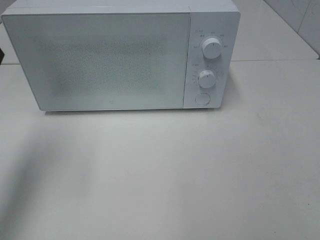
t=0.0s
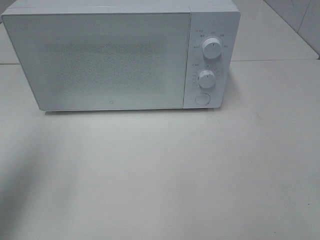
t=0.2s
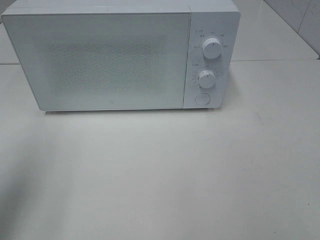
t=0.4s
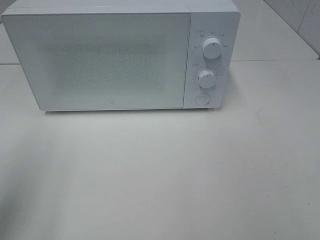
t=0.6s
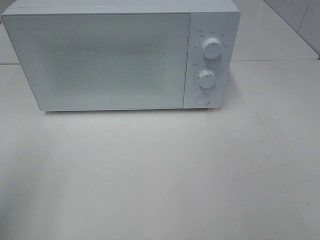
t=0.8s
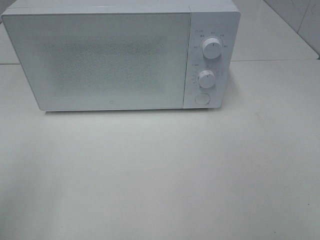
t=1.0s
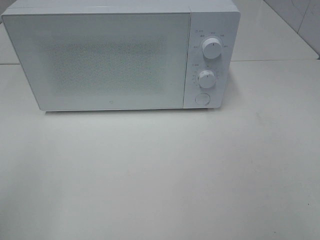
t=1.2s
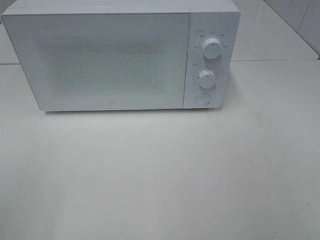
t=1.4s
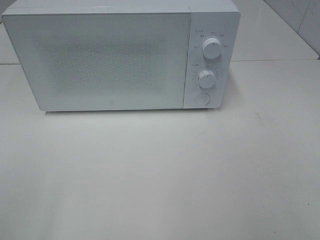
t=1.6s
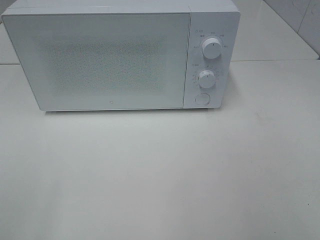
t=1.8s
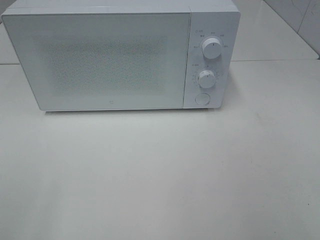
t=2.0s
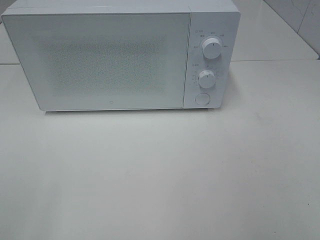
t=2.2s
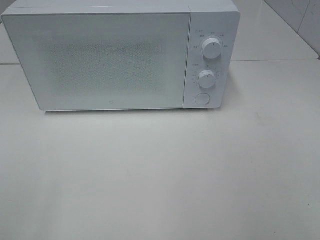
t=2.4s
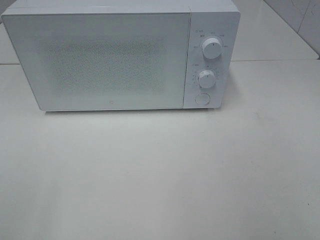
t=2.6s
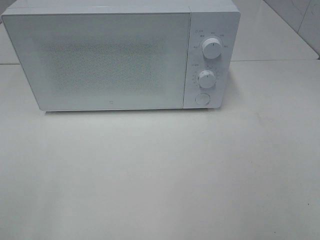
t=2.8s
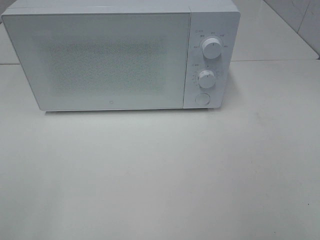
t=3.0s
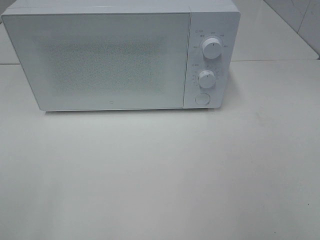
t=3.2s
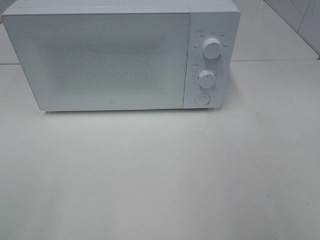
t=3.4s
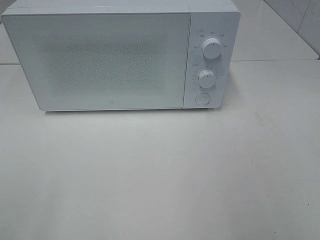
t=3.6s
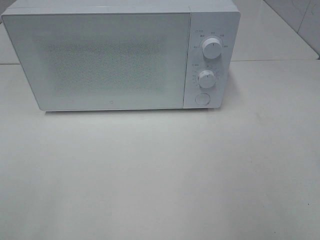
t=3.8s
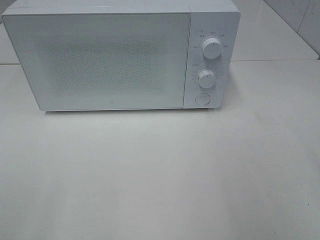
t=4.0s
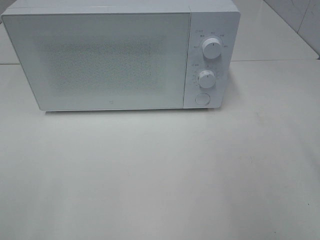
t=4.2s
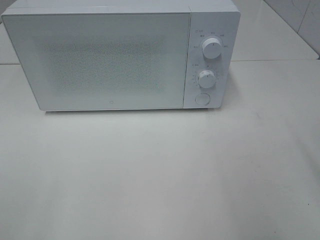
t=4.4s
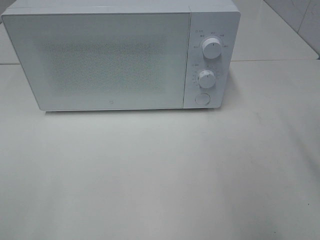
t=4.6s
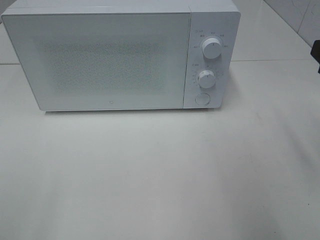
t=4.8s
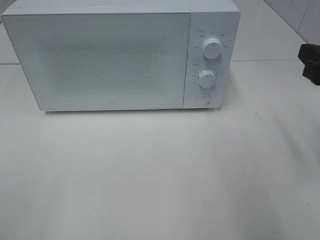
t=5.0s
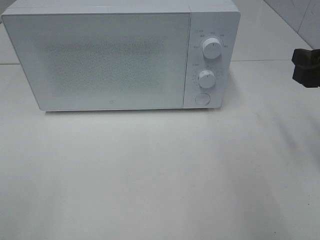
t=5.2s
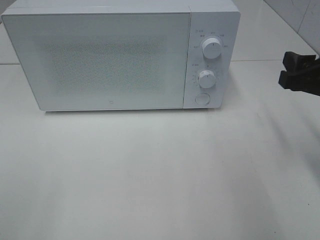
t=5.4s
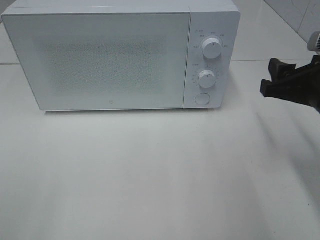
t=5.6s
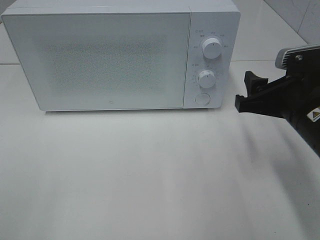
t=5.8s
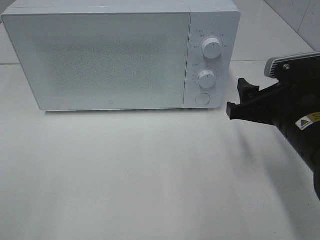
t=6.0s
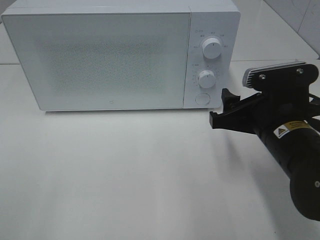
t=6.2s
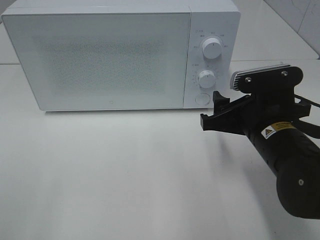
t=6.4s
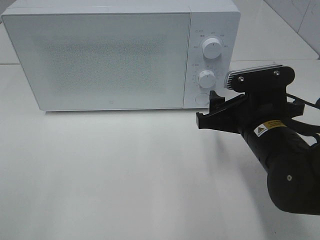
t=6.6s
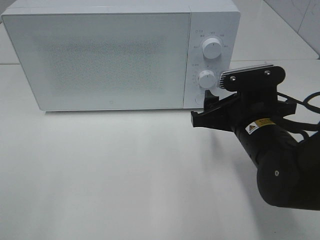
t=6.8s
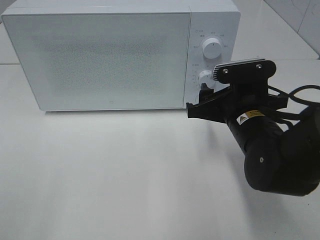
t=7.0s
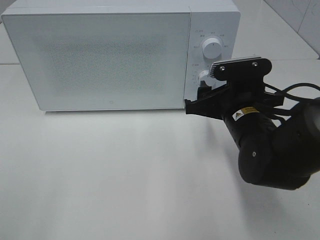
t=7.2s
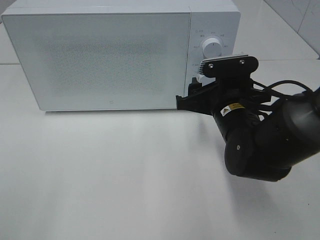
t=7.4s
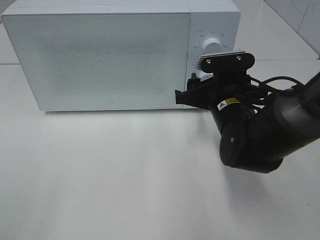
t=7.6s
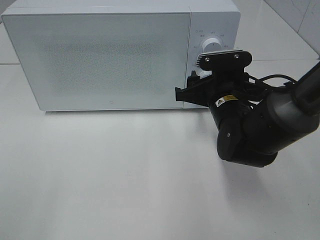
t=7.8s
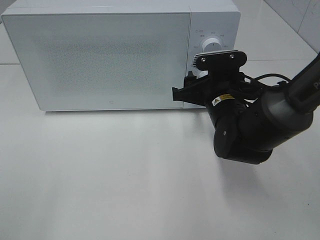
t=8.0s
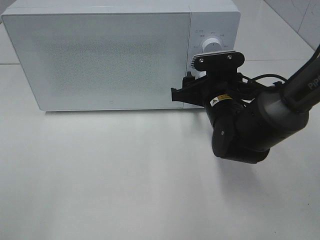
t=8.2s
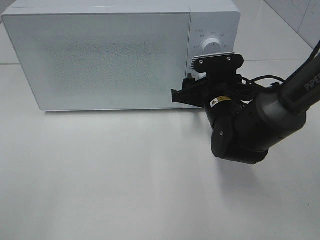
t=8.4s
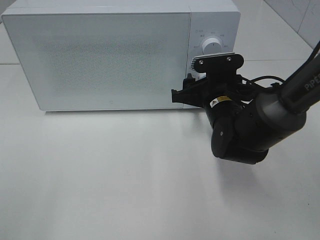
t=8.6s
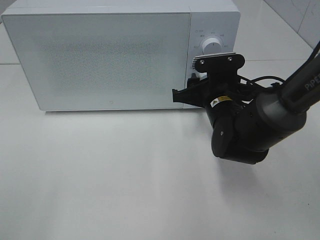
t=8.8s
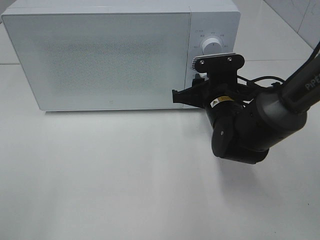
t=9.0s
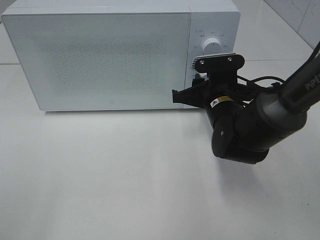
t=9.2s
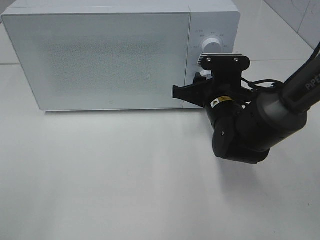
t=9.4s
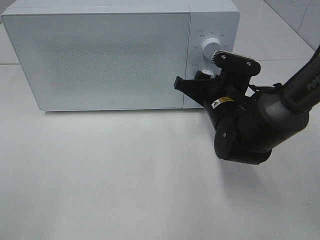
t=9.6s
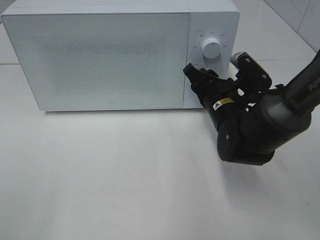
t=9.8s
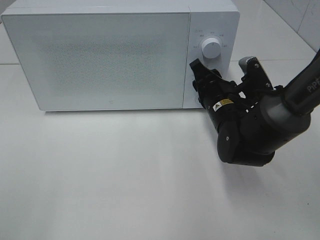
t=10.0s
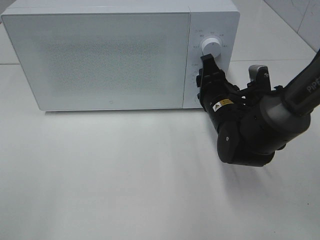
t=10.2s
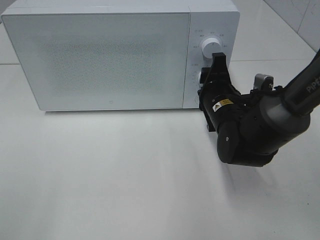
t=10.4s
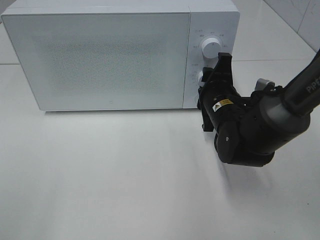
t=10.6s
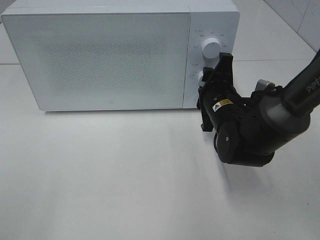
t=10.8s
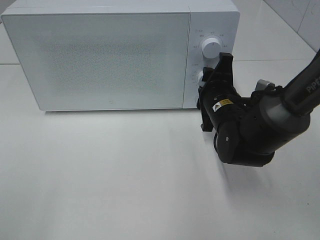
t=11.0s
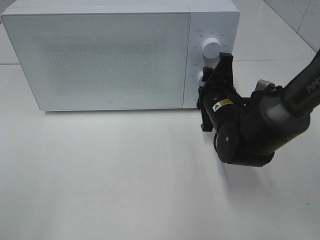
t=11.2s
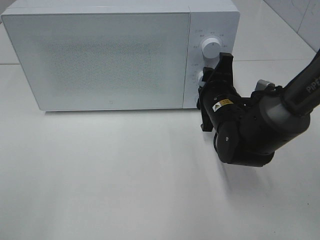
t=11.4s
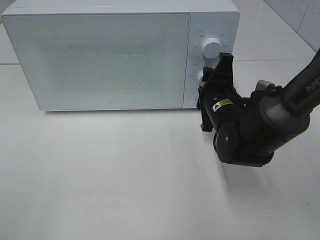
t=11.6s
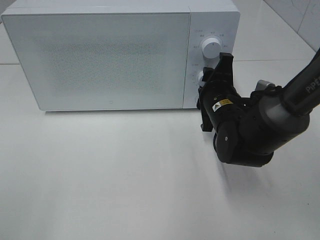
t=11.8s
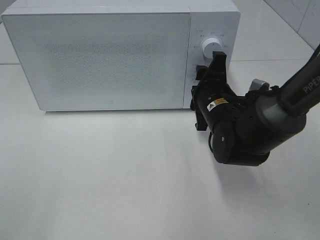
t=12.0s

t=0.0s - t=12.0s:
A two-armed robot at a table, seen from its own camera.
Task of the whole recording: Heat the burger.
t=0.0s - t=1.6s: The left gripper goes roughly 25 cm backward.
t=4.4s - t=6.0s: The right gripper heads downward, to the left and forward, covering roughly 15 cm.
t=6.0s - t=7.6s: The right gripper heads forward and to the left, covering roughly 10 cm.
t=7.6s - t=9.0s: The grippers make only small movements.
t=10.4s - t=12.0s: There are only small adjustments of the grippers.

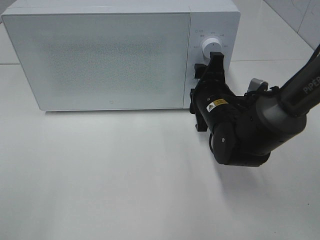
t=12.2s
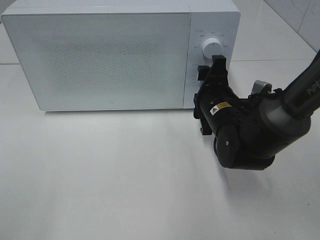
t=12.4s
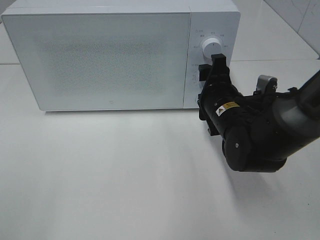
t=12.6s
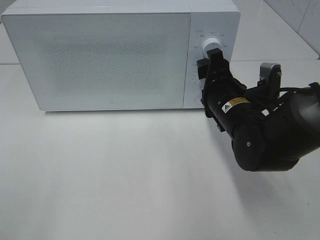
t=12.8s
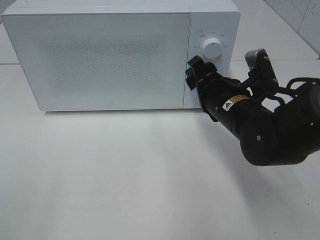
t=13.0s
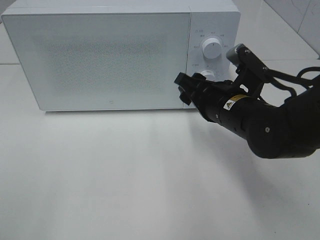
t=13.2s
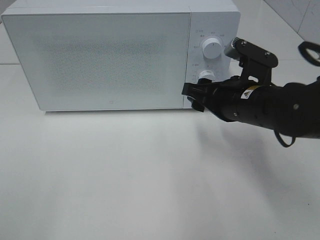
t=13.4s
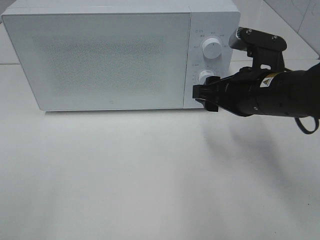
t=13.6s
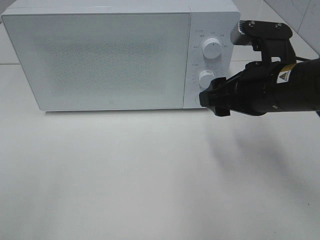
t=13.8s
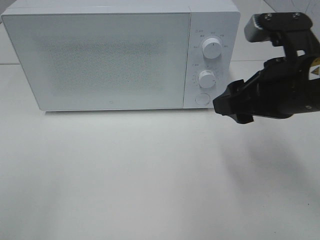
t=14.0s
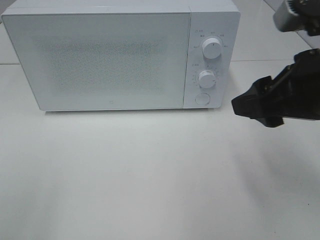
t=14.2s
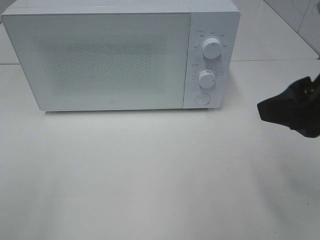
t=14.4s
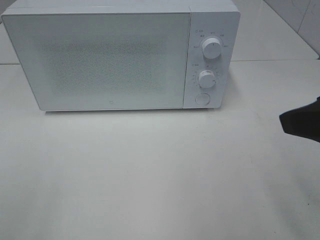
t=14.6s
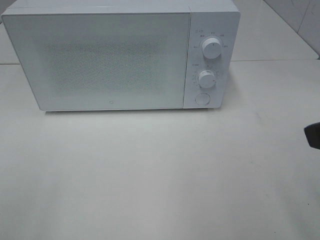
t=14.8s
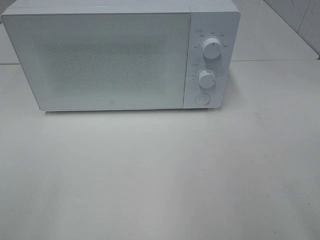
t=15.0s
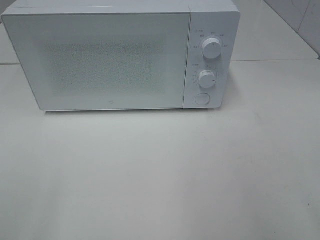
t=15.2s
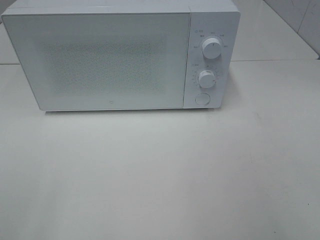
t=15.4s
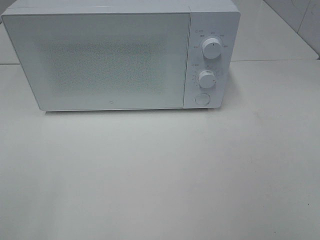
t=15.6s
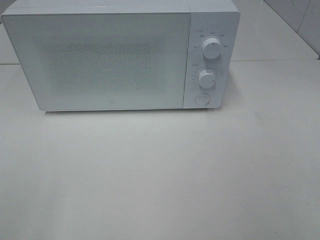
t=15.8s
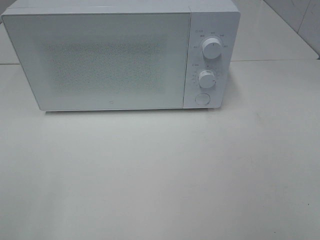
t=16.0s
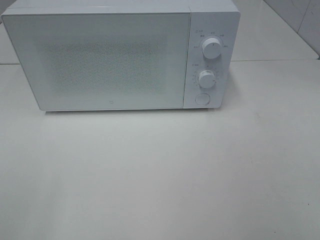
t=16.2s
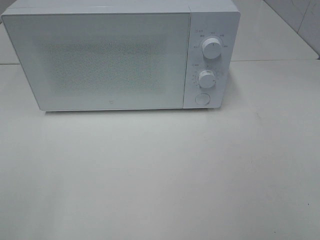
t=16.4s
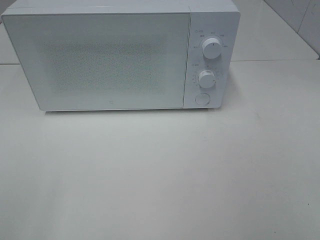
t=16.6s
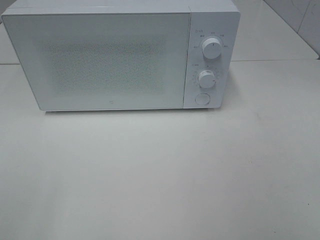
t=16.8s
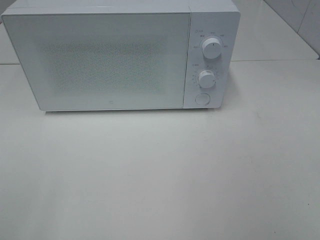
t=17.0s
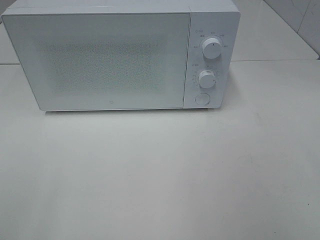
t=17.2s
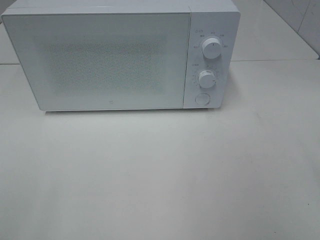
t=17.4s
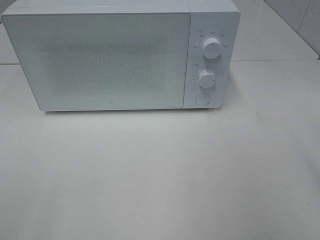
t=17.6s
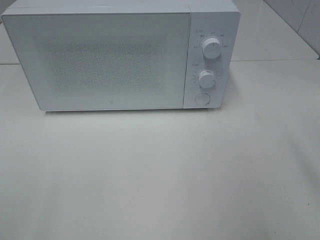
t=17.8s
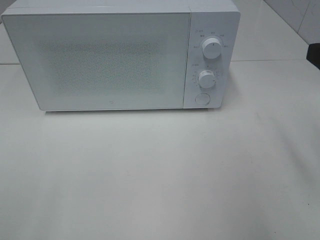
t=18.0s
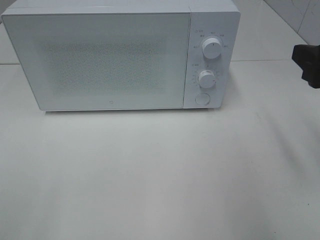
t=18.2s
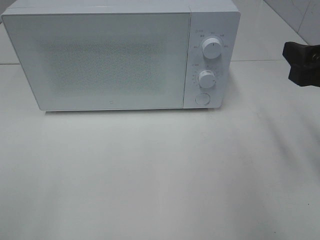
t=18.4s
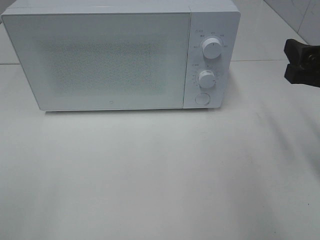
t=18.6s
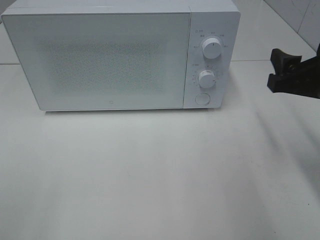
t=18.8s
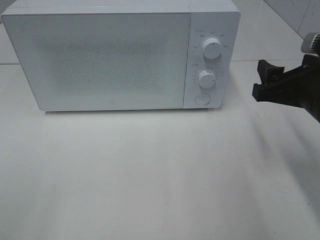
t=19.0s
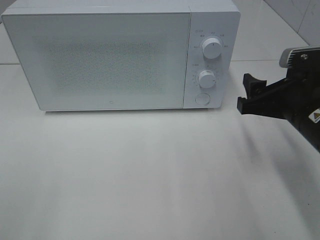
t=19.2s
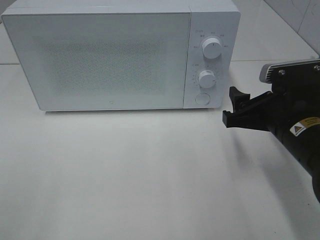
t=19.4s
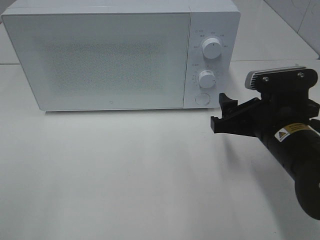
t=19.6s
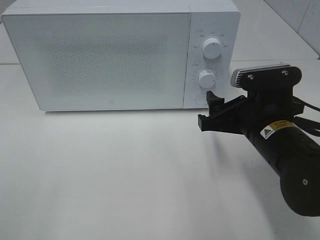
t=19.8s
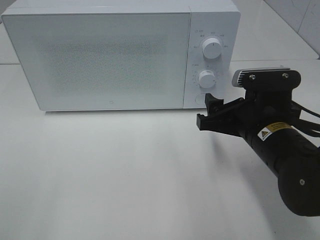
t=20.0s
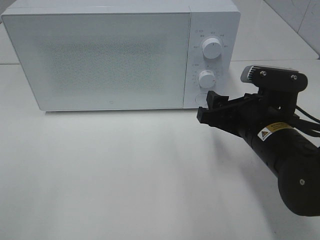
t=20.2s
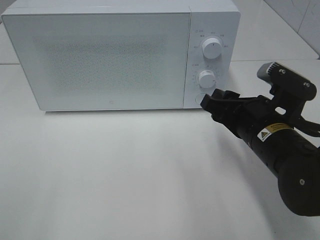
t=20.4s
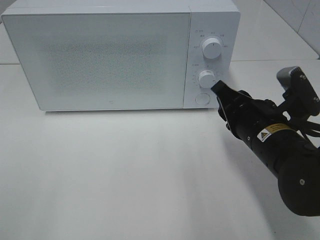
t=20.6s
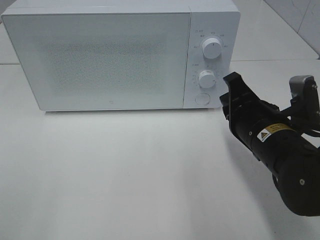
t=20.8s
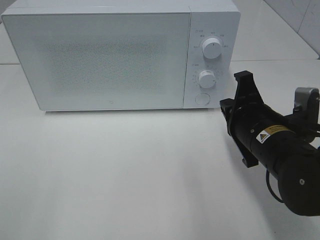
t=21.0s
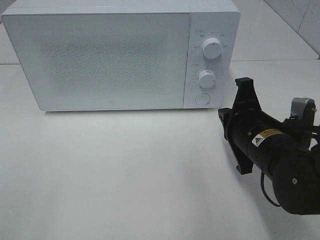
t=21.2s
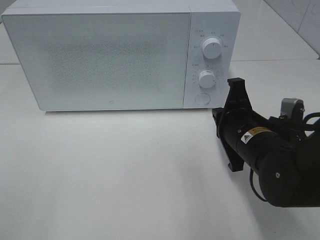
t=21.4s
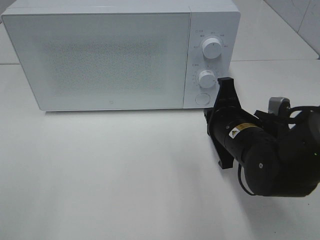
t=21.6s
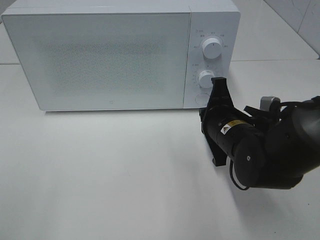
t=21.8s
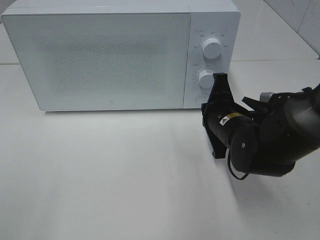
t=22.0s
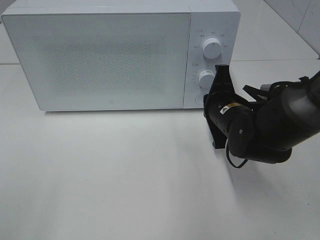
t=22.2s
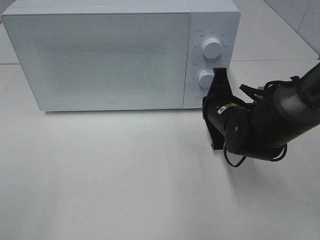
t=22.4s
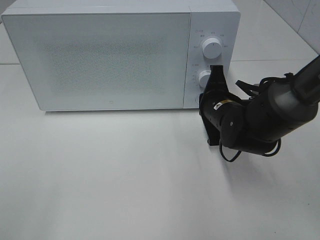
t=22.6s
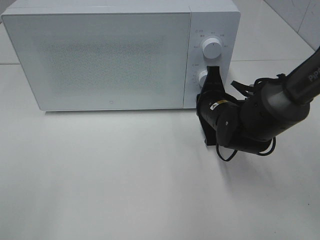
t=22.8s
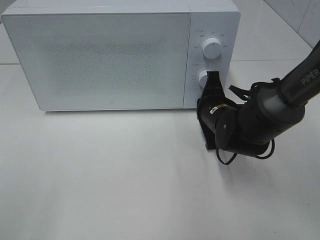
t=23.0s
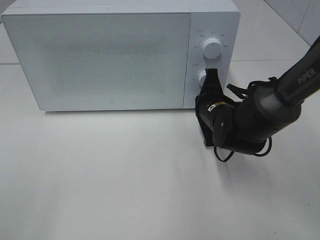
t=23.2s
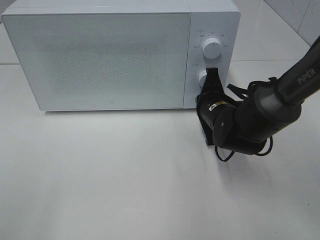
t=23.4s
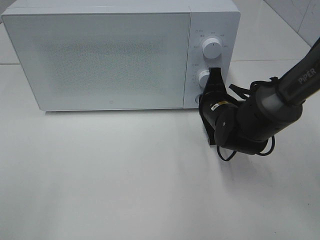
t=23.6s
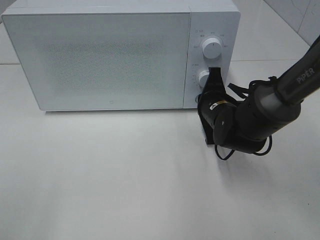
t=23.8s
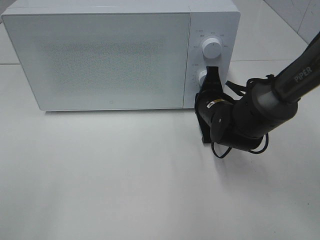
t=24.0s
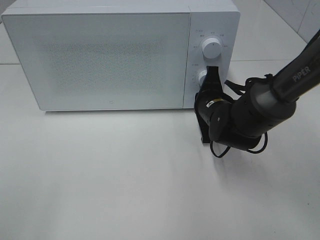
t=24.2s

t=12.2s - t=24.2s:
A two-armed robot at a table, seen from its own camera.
Task of the whole recording: Heat the burger.
t=12.2s - t=13.8s: The right gripper goes approximately 15 cm upward, backward and to the right.
t=13.8s - t=15.2s: The right gripper heads backward, to the right and upward, covering some 25 cm.
t=16.6s - t=18.2s: The right gripper goes roughly 20 cm forward.
t=18.2s - t=19.8s: The right gripper travels downward and to the left by roughly 15 cm.
t=19.8s - t=21.2s: The right gripper closes up.
t=21.2s - t=22.6s: The right gripper travels forward by about 10 cm.
t=22.6s - t=24.2s: There are only small adjustments of the grippers.
